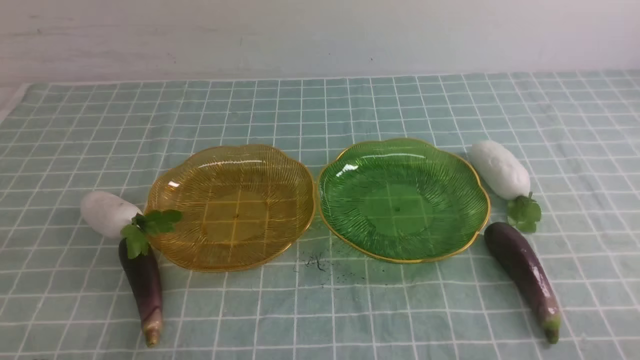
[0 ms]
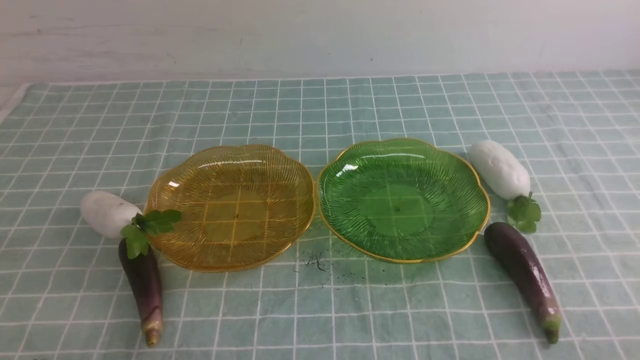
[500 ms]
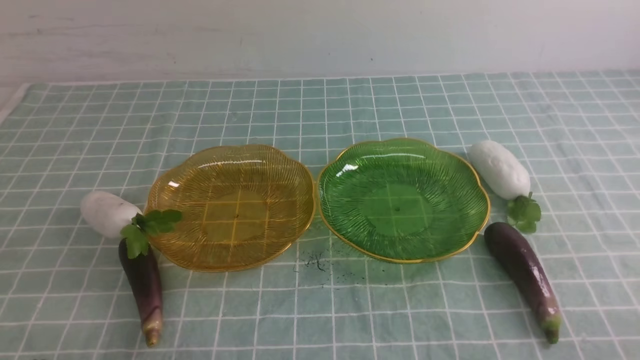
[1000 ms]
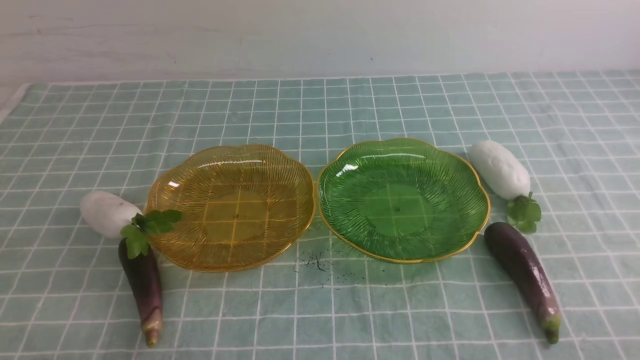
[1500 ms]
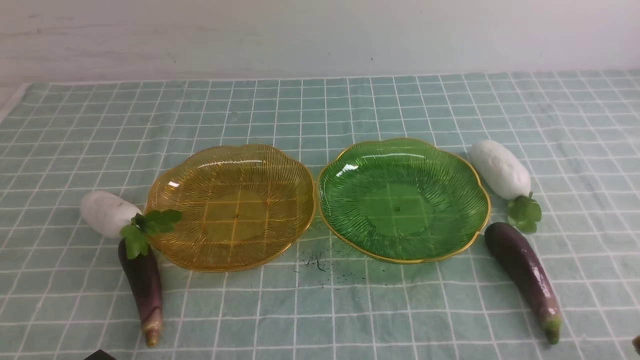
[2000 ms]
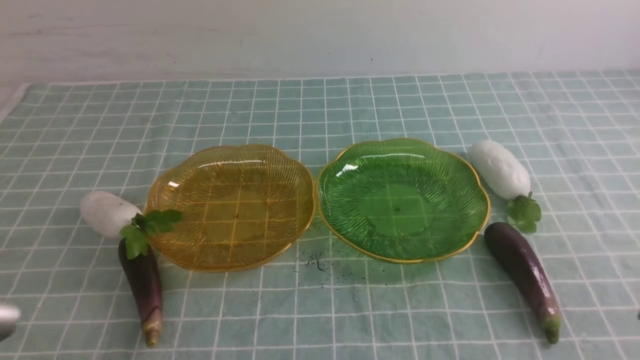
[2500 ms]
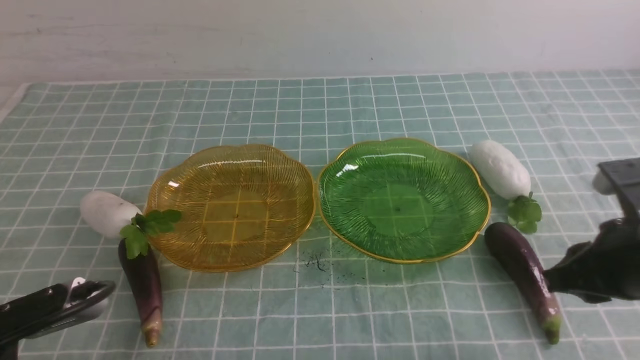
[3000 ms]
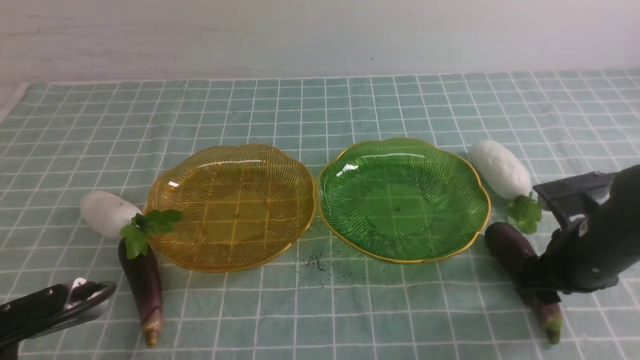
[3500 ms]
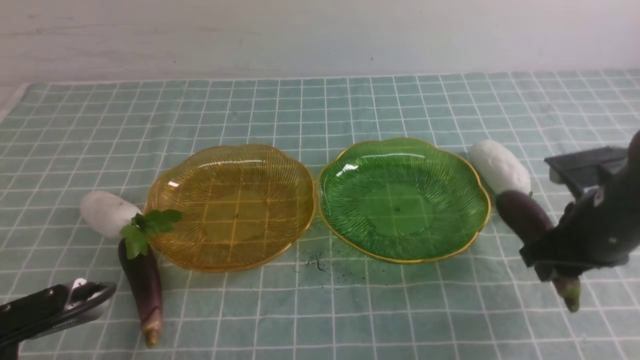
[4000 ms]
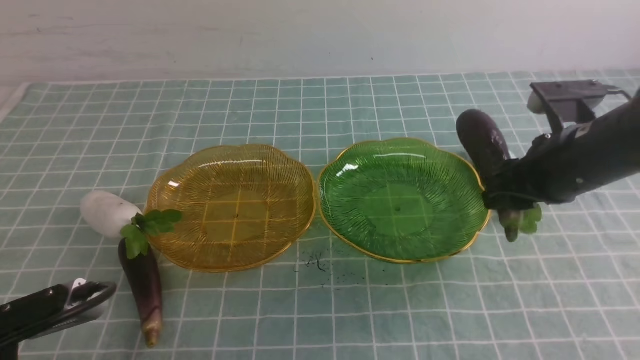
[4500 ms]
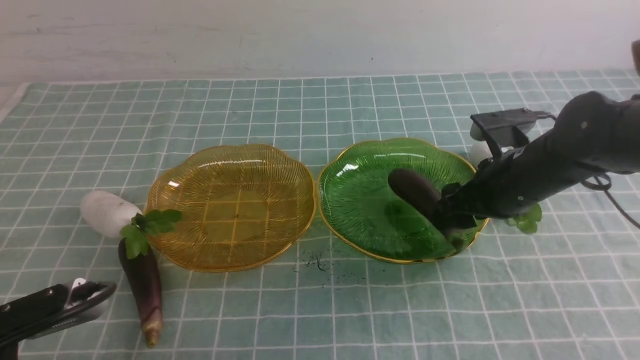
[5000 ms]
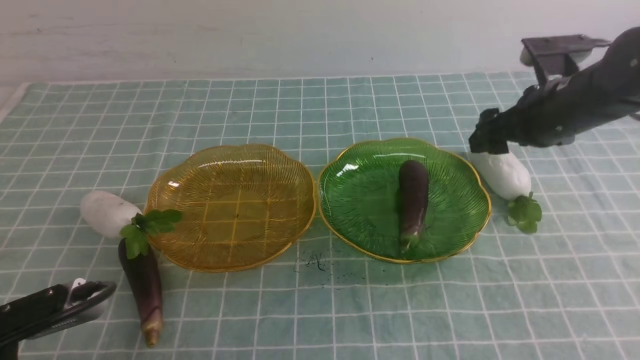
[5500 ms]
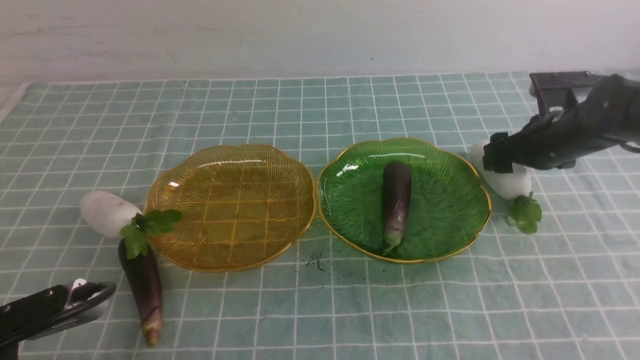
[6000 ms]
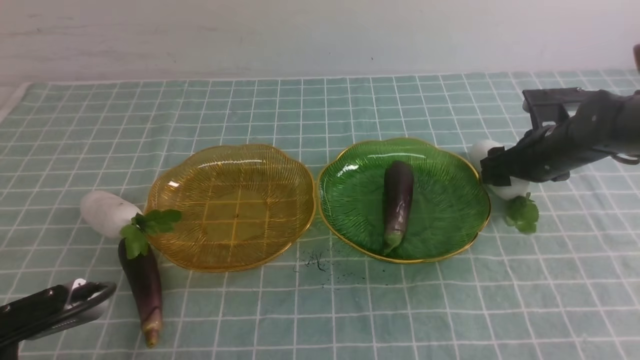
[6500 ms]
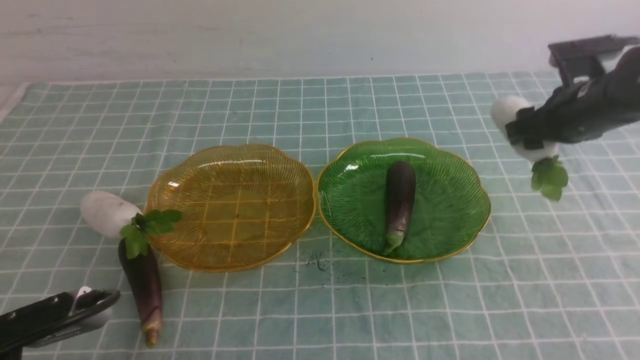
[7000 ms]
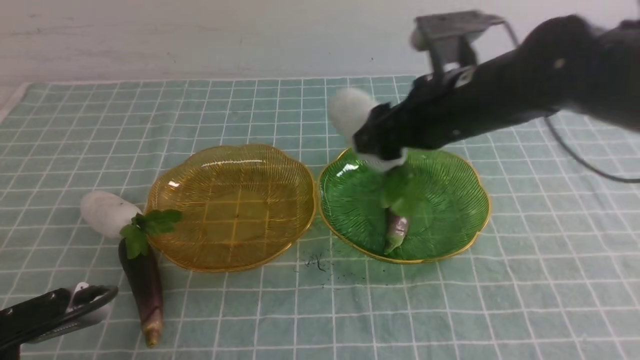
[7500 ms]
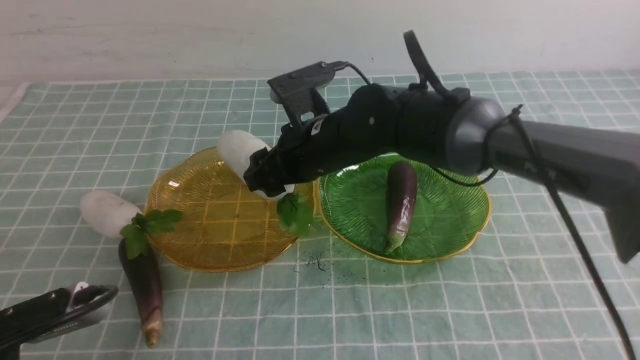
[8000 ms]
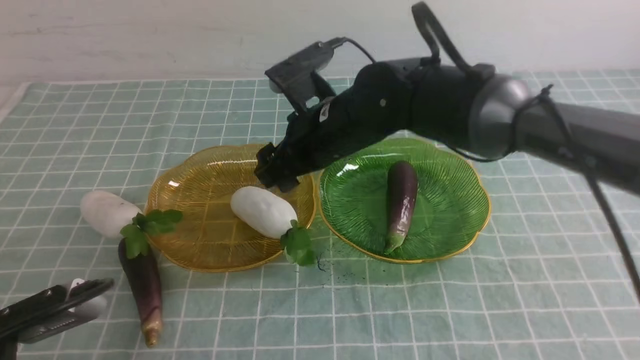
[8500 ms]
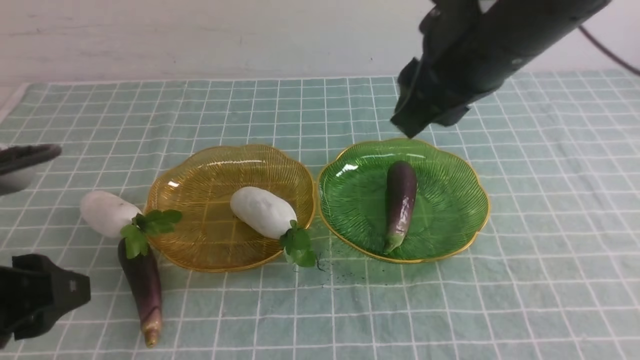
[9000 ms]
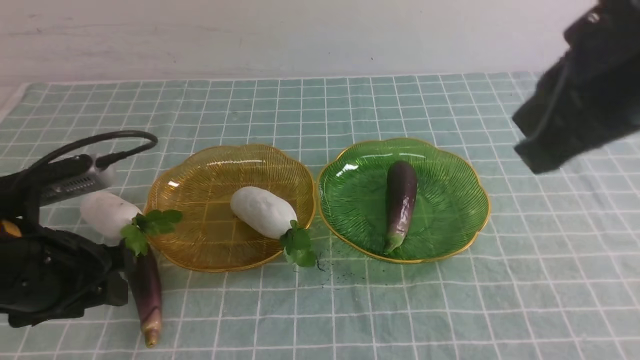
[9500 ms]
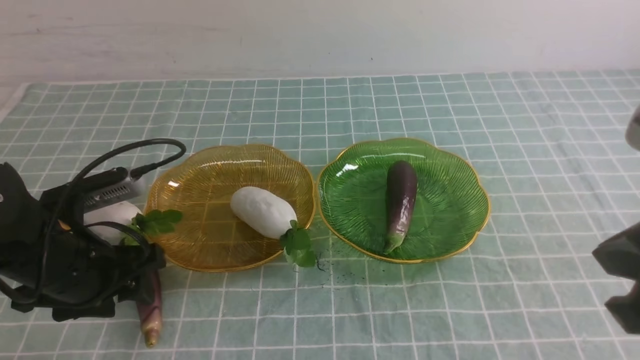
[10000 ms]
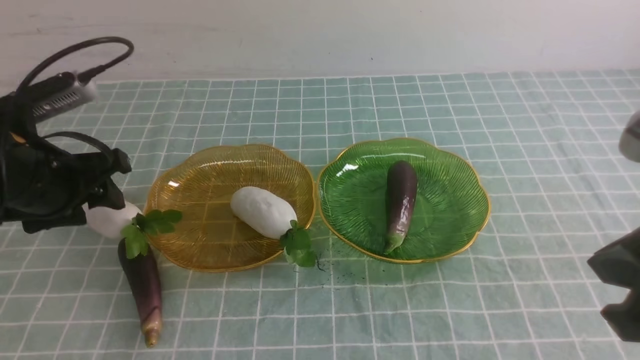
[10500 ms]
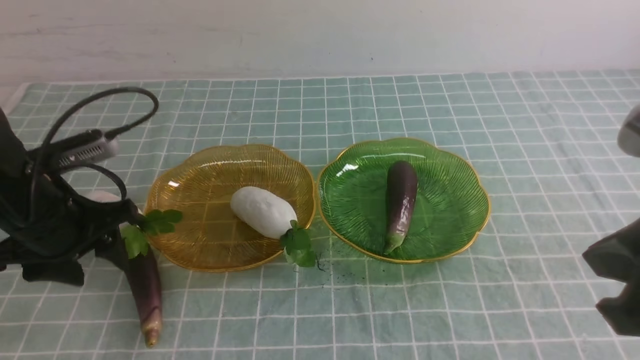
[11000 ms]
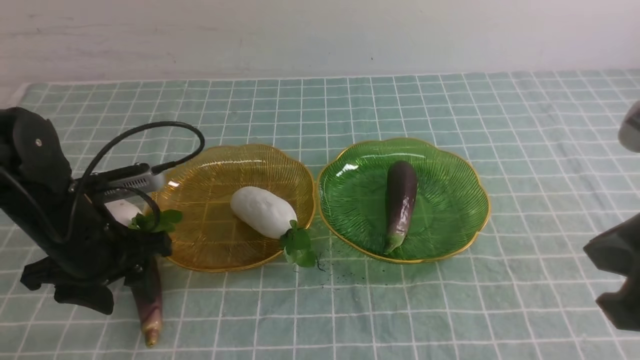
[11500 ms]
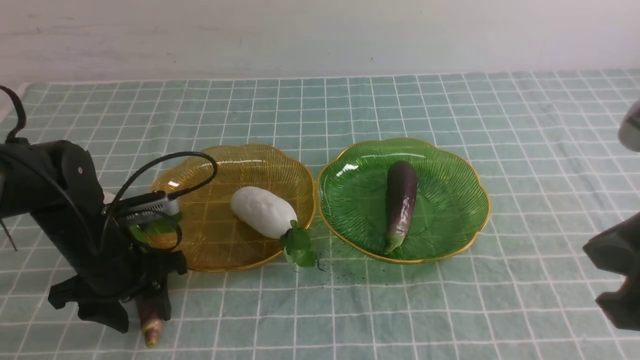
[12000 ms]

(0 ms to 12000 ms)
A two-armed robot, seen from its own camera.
Step, 0 ms - 5000 ms: use the right arm to grab an eggplant and put it into the right plate.
Step, 5500 ms - 8500 ms: use the right arm to grab a radish and put it into the left plate.
2000 ms - 4000 ms: The right gripper shifts about 25 cm forward, and opens its fingers; the left gripper shifts by some 5 cm.
4000 ms - 6000 ms: The right gripper is displaced forward by about 15 cm, and opens.
6000 ms - 8000 ms: The right gripper shifts roughly 25 cm to the left.
8000 ms - 10000 ms: The left gripper moves forward, approximately 15 cm, and opens. Meanwhile the right gripper is displaced backward, to the right and upward by some 35 cm, and closes up.
10000 ms - 12000 ms: The left gripper is displaced forward by approximately 5 cm.

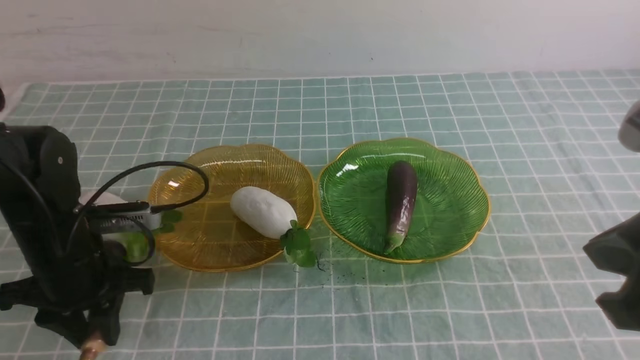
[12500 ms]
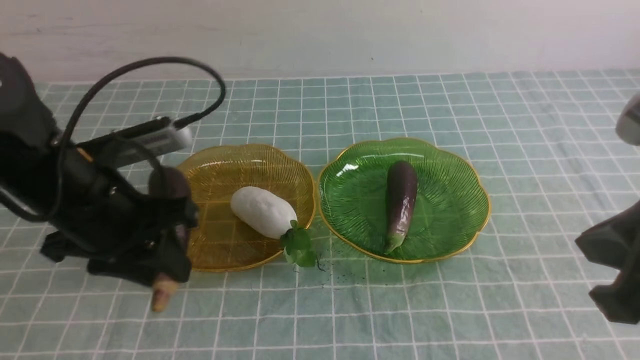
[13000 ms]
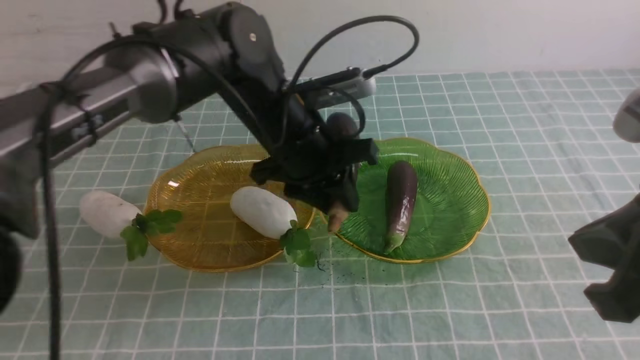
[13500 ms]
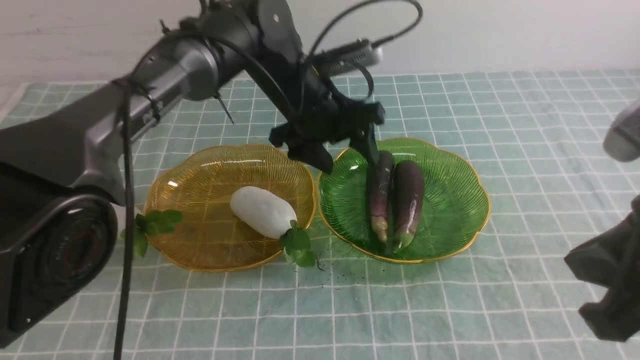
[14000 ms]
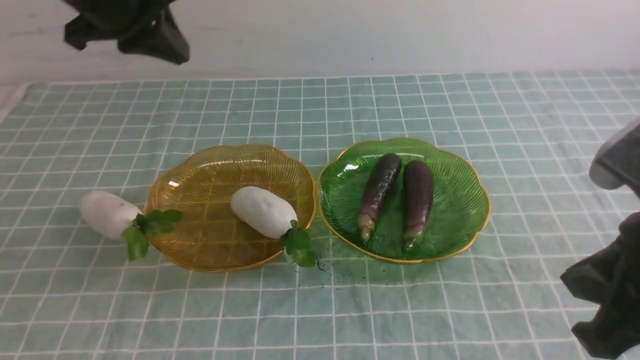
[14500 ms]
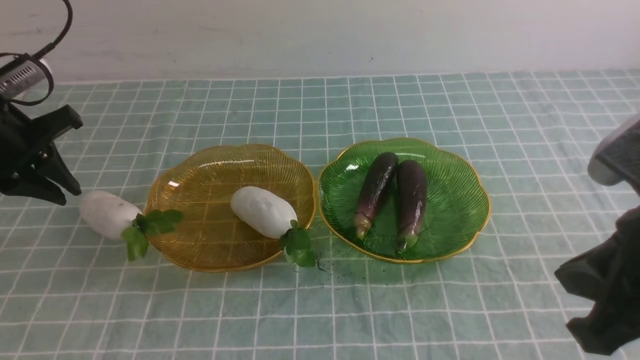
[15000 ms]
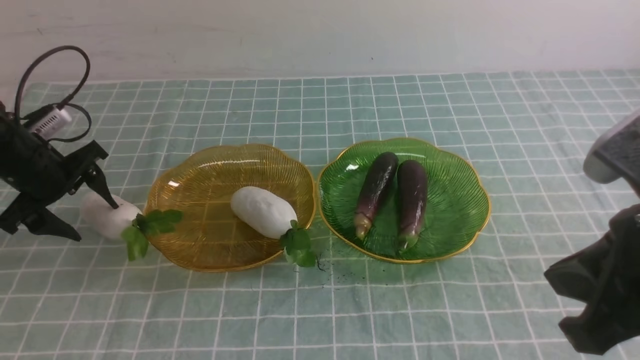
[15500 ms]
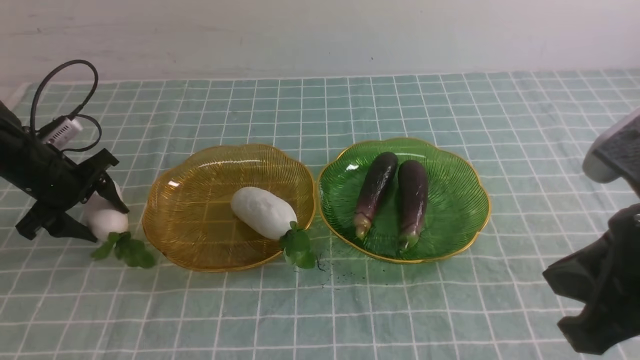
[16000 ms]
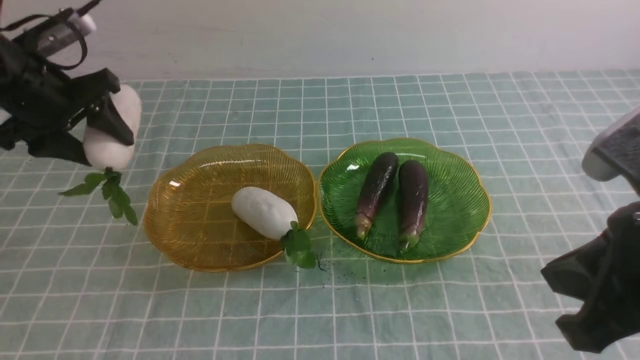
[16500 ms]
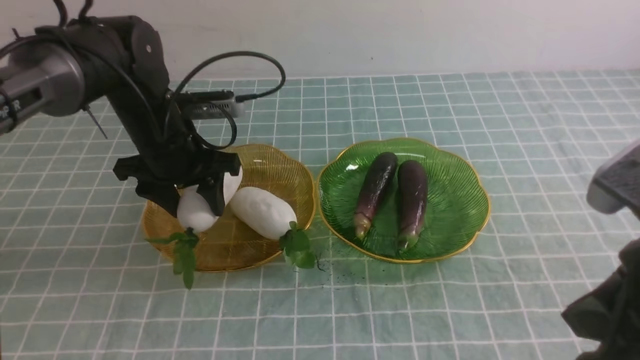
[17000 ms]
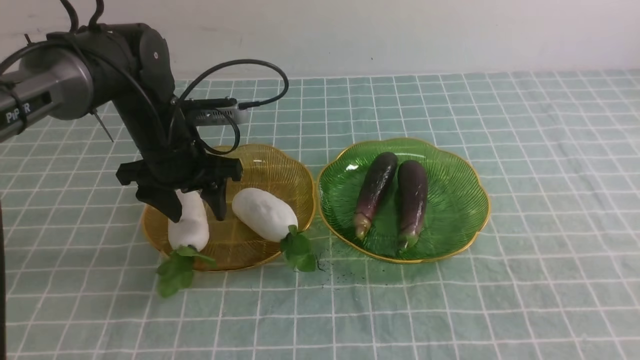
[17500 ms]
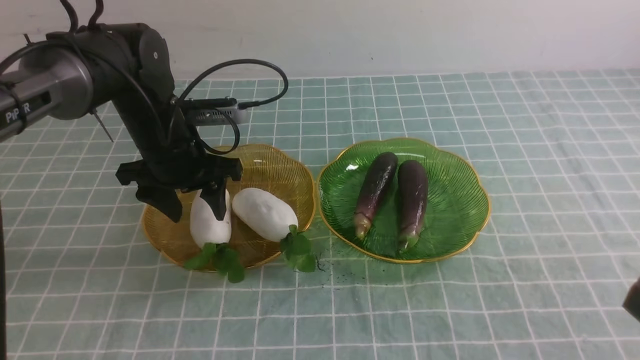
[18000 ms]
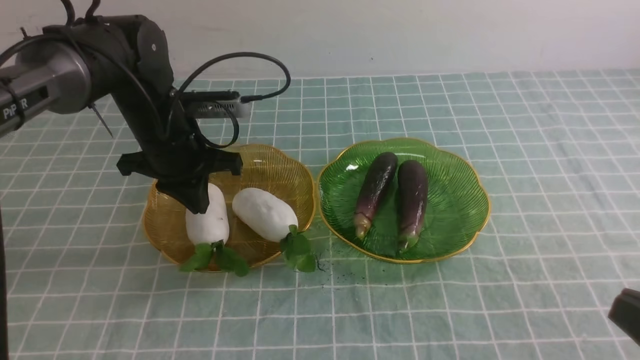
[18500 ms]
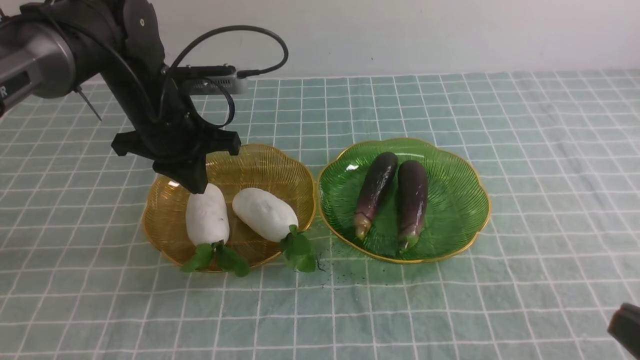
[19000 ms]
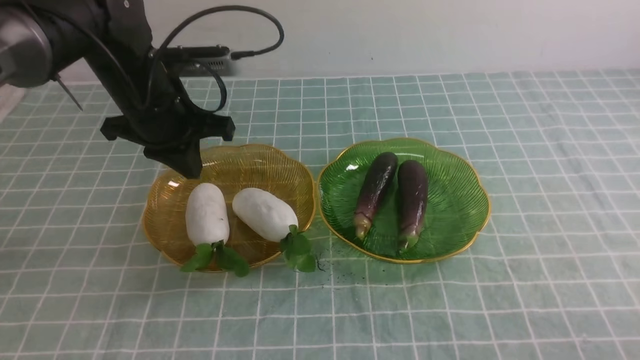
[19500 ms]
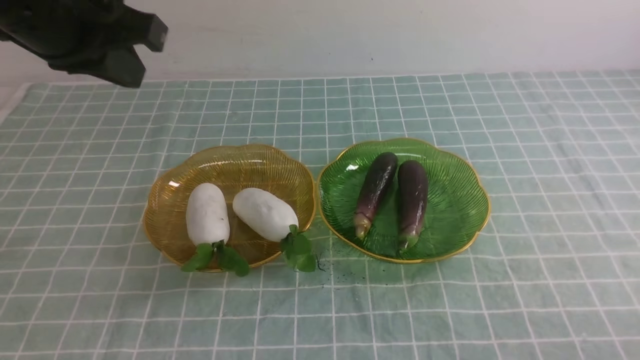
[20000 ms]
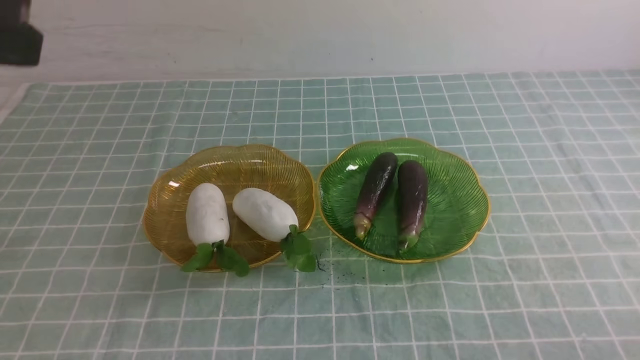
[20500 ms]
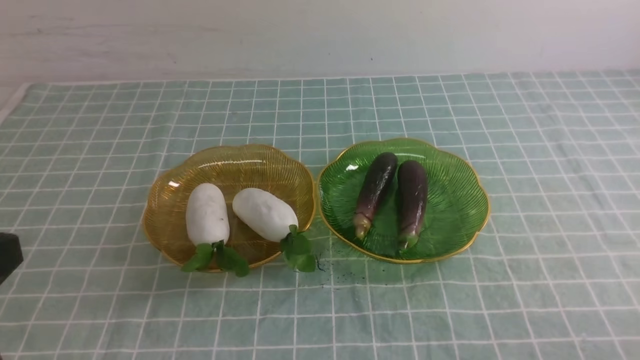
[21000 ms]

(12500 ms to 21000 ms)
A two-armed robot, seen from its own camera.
Step, 14000 ms - 17500 ms: use the left arm to grab a radish and put it into the left plate.
12500 ms - 14500 ms: The left gripper goes approximately 25 cm upward and forward, moves approximately 20 cm to the right and comes back, and opens, then closes once more.
14500 ms - 16500 ms: The left gripper is displaced downward and to the left by approximately 15 cm, and opens up.
16500 ms - 19000 ms: The left gripper shifts roughly 15 cm to the right, and closes; the right gripper is displaced backward, downward and to the right by roughly 15 cm.
19000 ms - 21000 ms: The left gripper travels backward by some 35 cm. Meanwhile the right gripper heads downward, covering about 10 cm.
